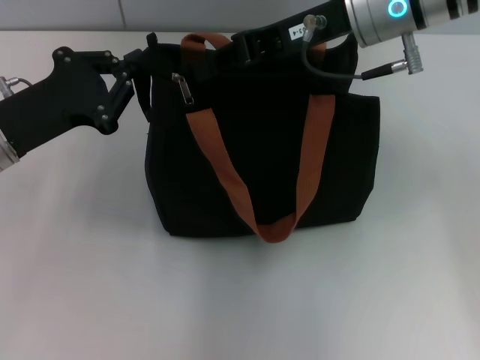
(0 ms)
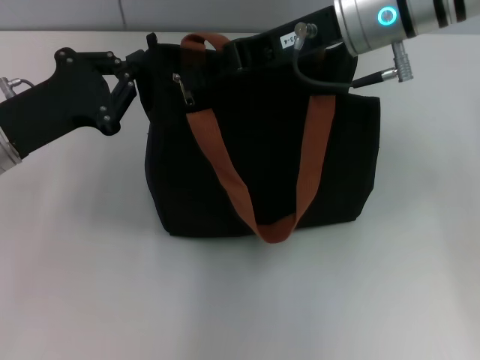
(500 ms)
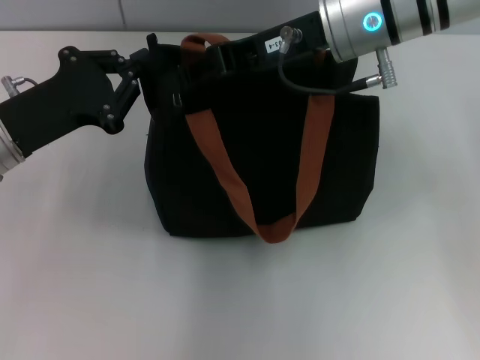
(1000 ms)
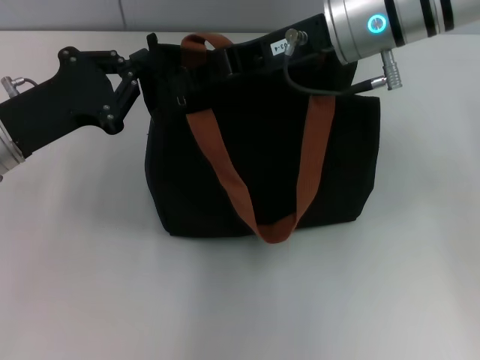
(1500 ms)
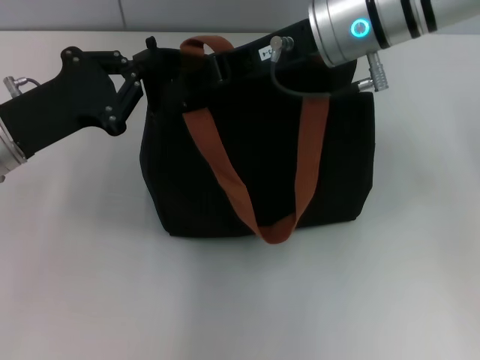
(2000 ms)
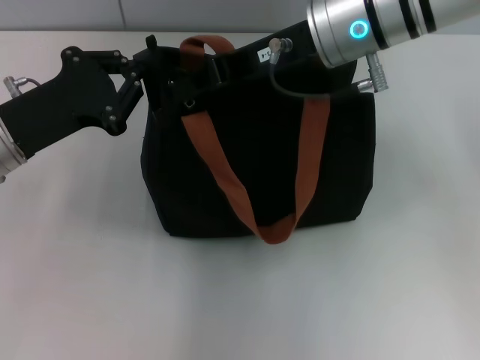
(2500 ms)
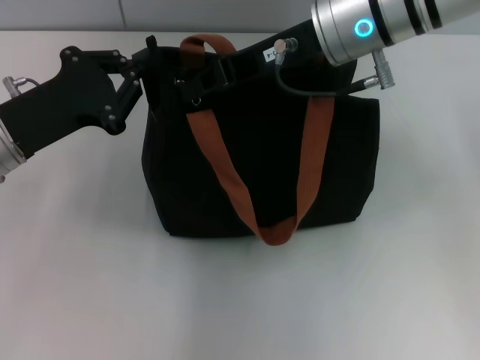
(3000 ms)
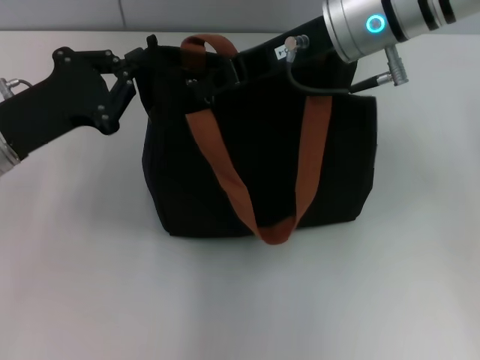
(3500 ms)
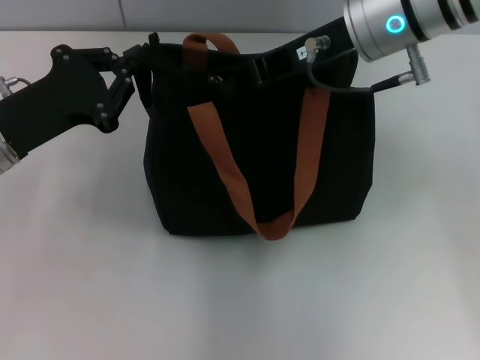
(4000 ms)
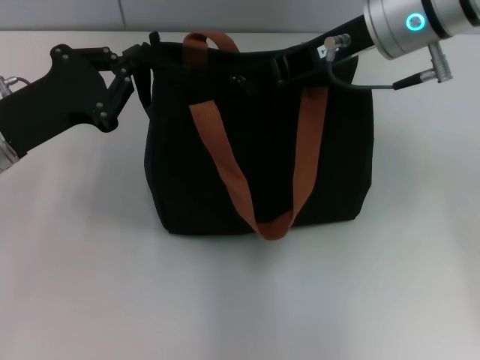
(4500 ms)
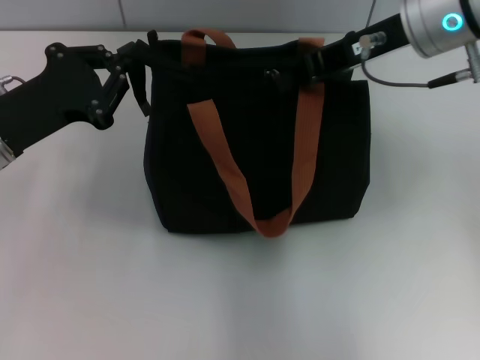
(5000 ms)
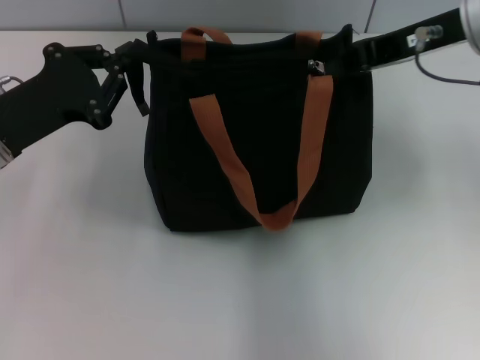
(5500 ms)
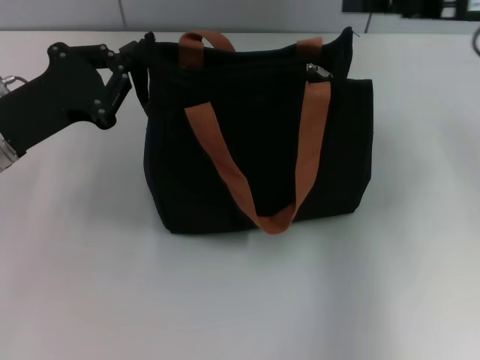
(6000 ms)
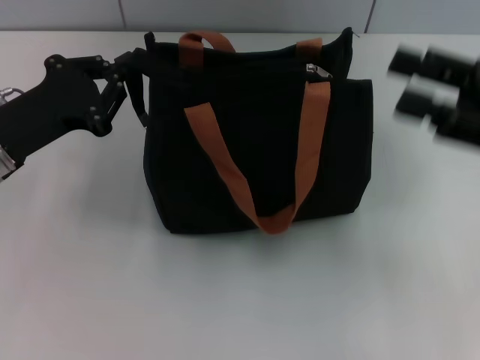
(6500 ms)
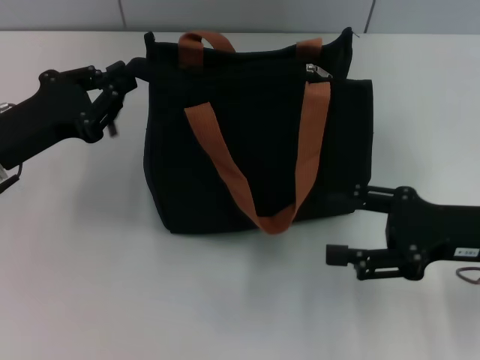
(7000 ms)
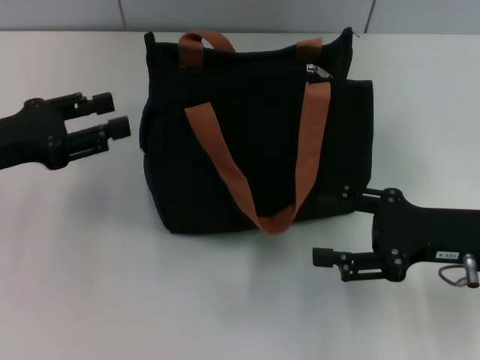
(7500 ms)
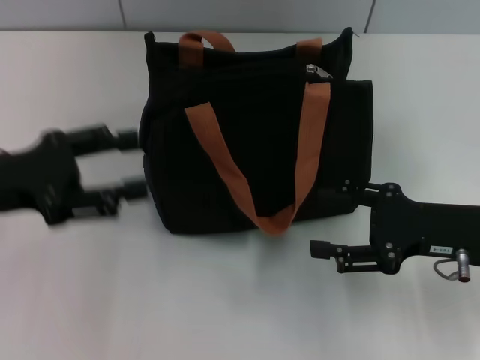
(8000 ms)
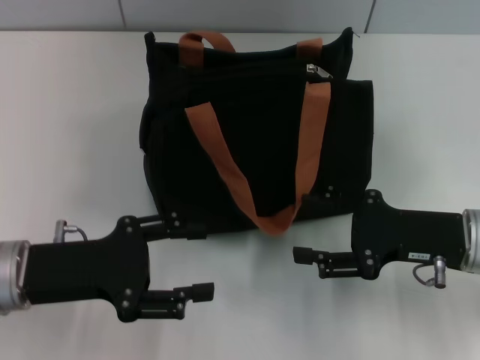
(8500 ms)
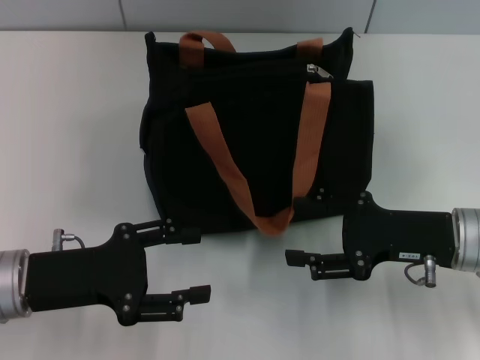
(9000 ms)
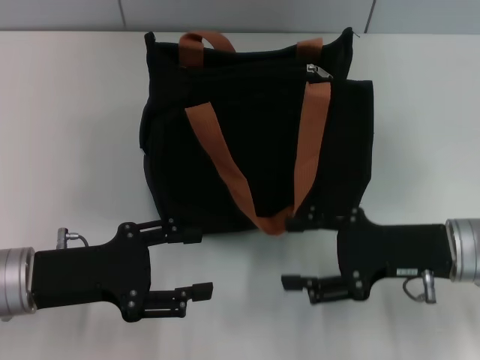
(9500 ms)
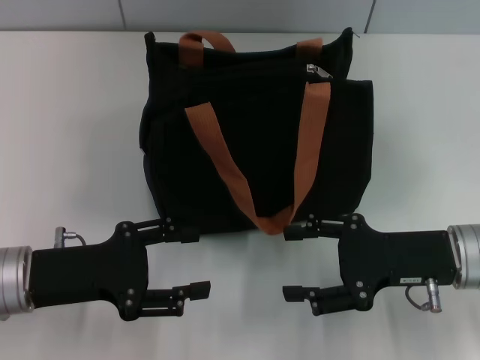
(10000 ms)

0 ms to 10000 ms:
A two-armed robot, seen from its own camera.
Step, 0 ms to 5500 ms: Pull up the zipper with your right hand.
0 ms to 4000 ms: The grippers move only a little.
4000 ms to 6000 ms: The right gripper is displaced to the right by roughly 15 cm.
6000 ms to 8000 ms: The right gripper moves downward and backward, roughly 20 cm, and opens. Meanwhile the left gripper shifts by some 5 cm, and opens up.
8000 ms to 10000 ms: The left gripper shifts about 5 cm downward.
